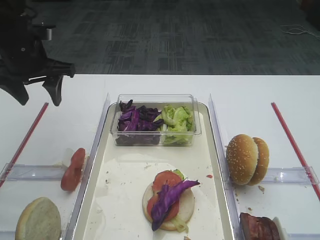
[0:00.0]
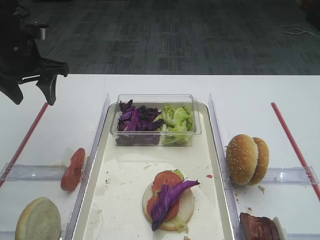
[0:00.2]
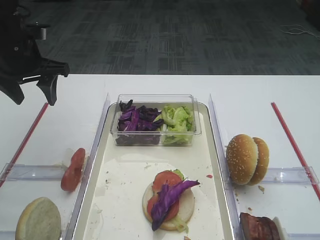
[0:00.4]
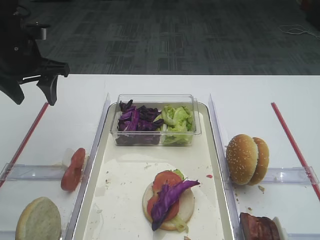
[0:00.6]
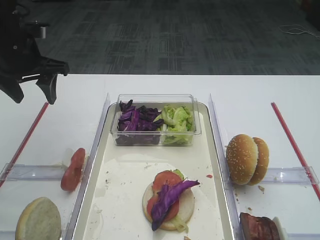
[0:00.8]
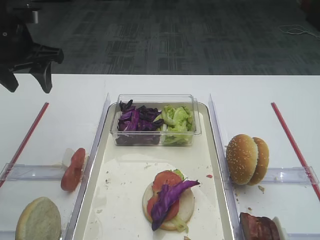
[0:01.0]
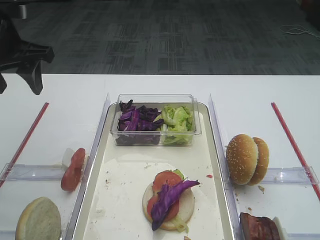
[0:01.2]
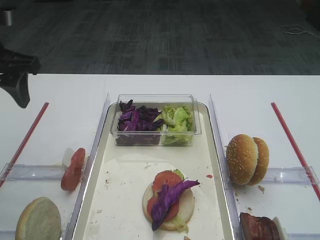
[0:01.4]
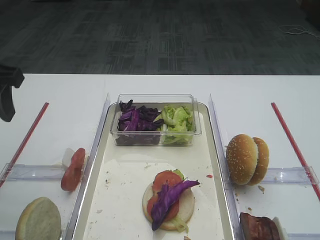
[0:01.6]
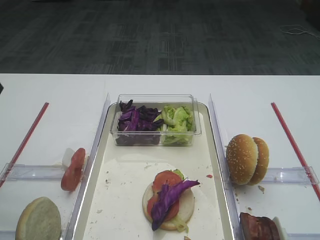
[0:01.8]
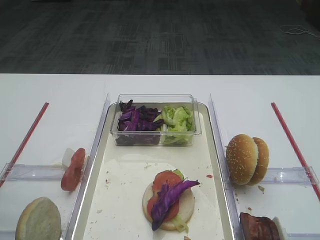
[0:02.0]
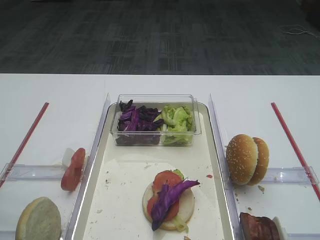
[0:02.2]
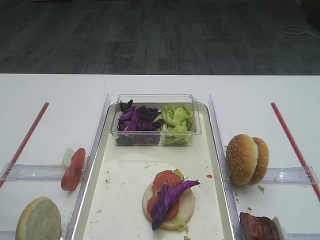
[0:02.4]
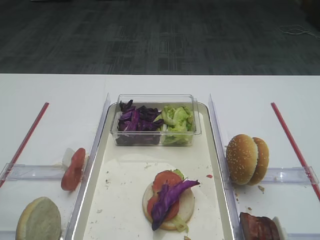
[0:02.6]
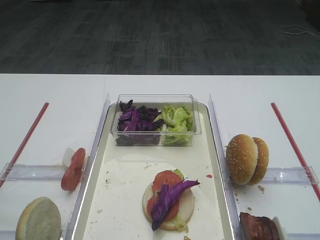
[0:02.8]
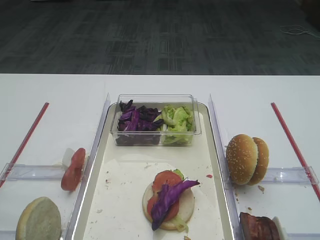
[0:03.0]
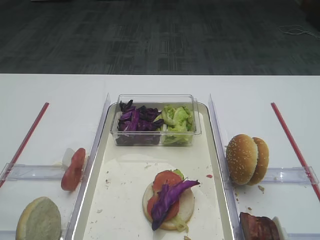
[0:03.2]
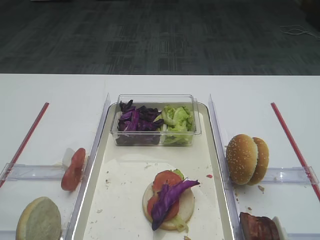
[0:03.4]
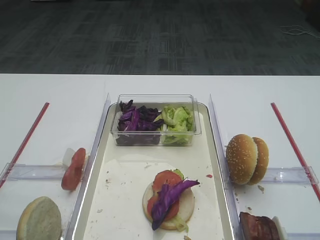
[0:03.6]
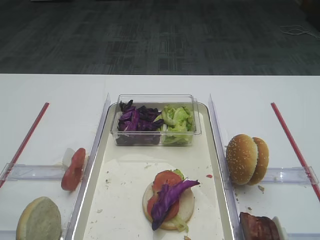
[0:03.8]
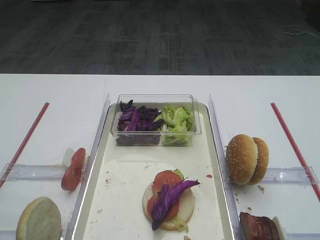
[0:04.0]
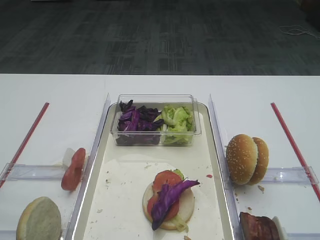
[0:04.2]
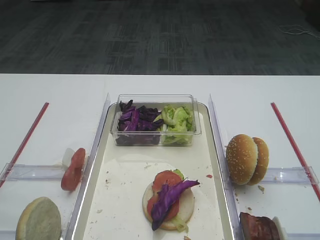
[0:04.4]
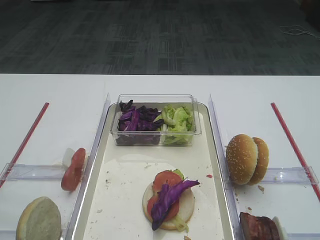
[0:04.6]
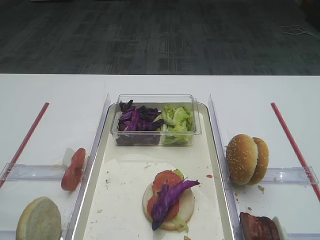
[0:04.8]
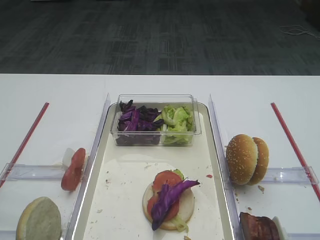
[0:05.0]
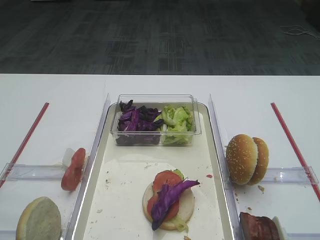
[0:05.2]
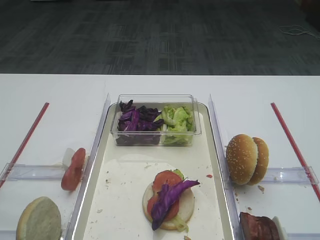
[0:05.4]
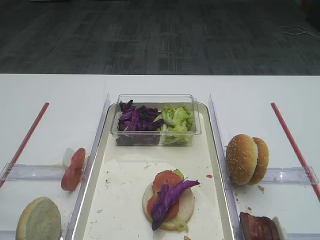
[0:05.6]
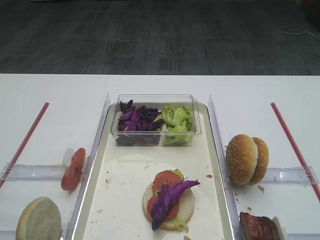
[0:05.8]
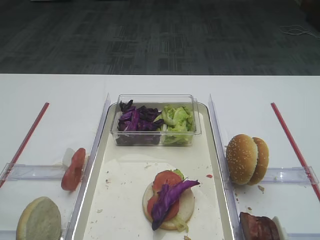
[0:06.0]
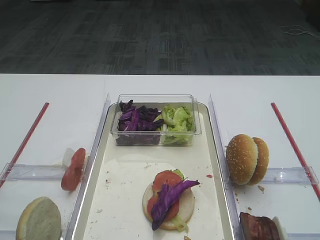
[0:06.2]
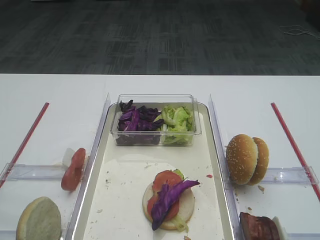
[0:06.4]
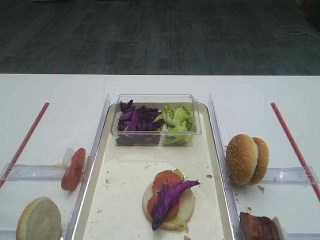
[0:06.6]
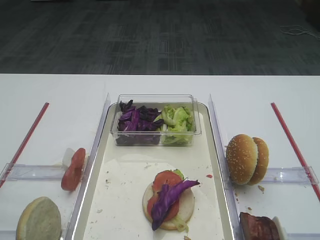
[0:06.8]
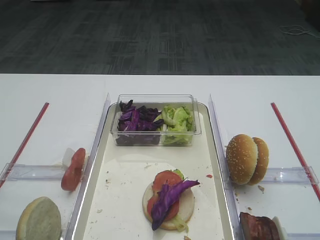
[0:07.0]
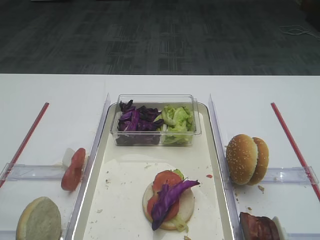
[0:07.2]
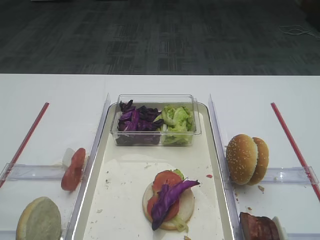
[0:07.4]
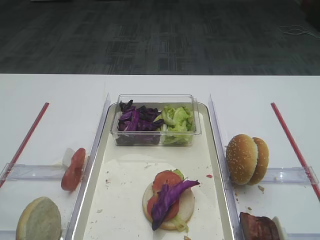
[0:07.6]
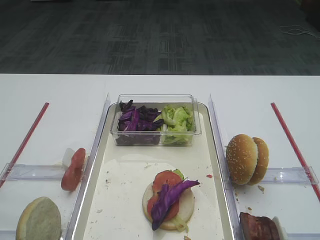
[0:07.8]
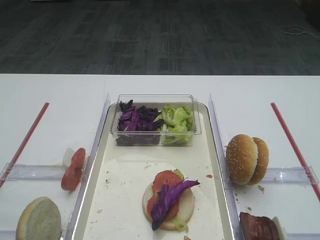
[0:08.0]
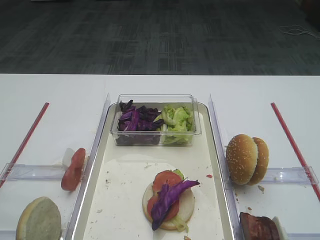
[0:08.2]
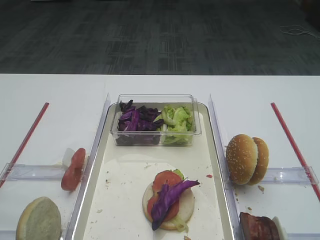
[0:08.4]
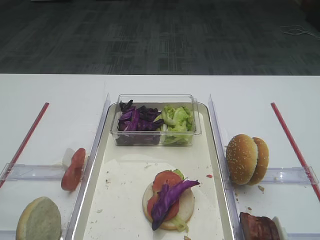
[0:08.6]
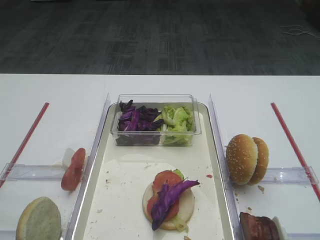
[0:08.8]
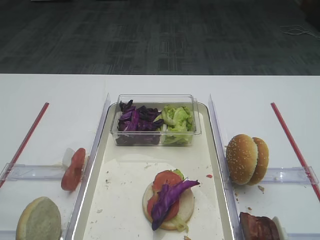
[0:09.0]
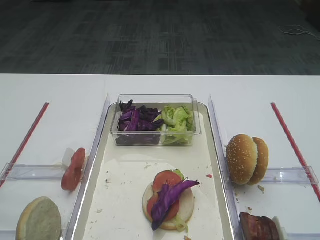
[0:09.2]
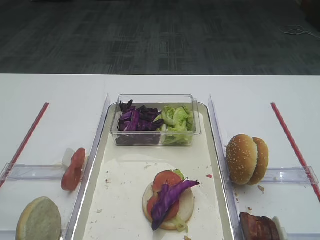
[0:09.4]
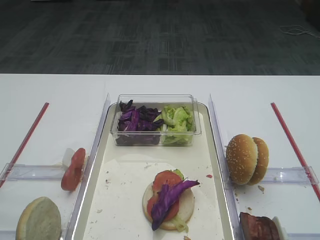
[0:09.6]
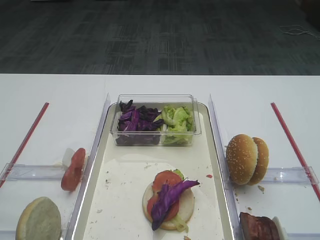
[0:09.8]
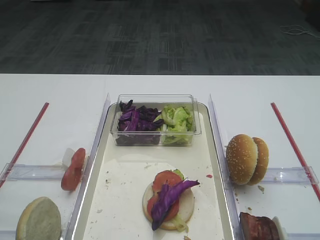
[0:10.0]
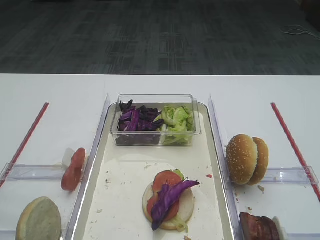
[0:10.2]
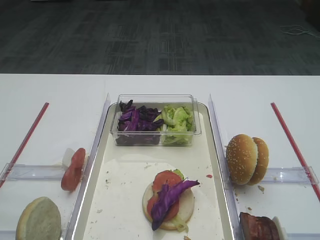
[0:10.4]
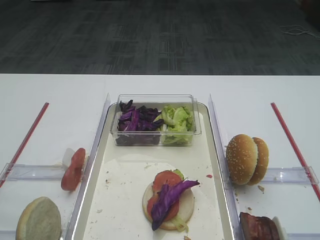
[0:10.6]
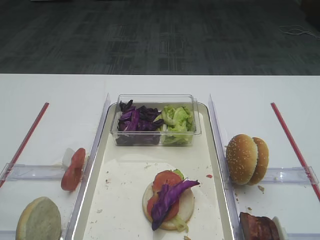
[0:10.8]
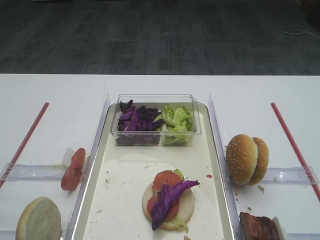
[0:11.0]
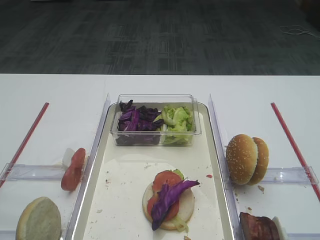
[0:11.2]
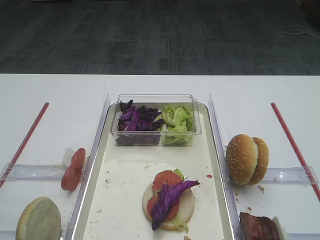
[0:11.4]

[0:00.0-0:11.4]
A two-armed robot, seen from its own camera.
0:00.0 to 0:01.4: The left gripper moves backward, approximately 10 cm.
0:01.4 to 0:02.8: The left gripper goes some 25 cm backward.
0:04.2 to 0:11.4: Both grippers stay about where they are.

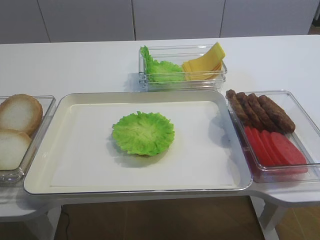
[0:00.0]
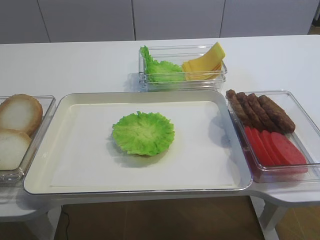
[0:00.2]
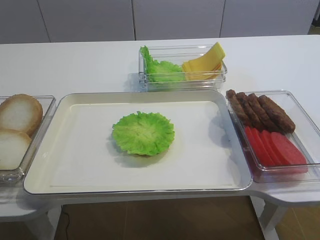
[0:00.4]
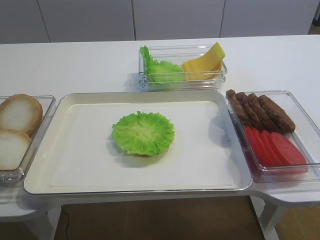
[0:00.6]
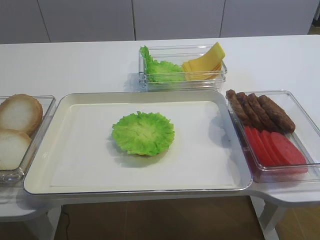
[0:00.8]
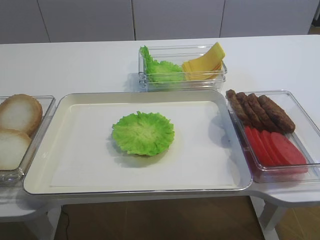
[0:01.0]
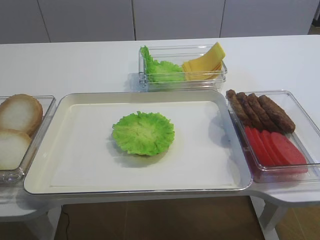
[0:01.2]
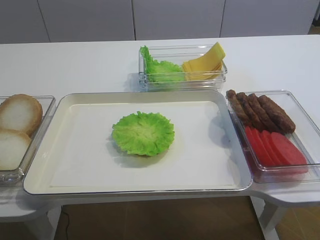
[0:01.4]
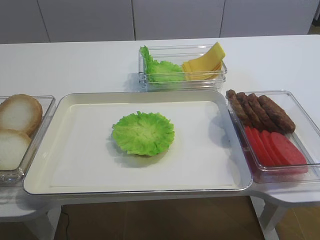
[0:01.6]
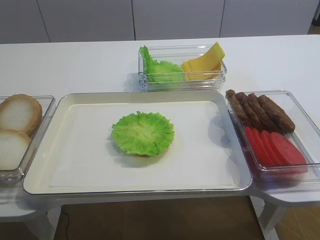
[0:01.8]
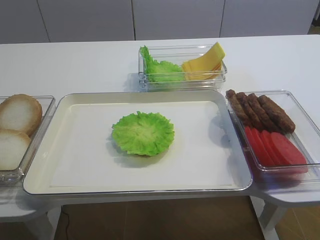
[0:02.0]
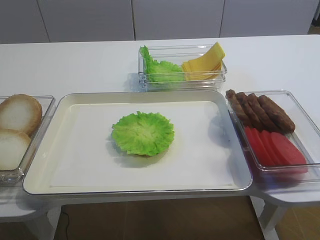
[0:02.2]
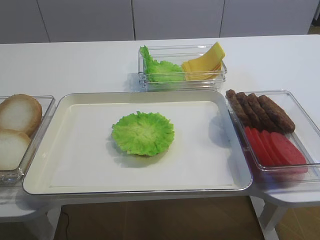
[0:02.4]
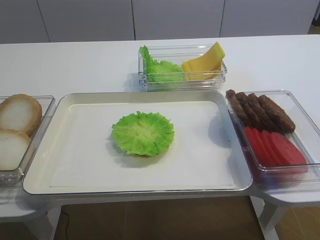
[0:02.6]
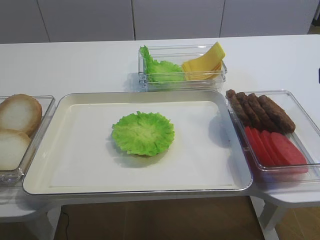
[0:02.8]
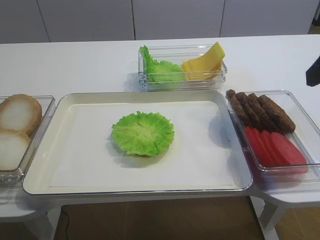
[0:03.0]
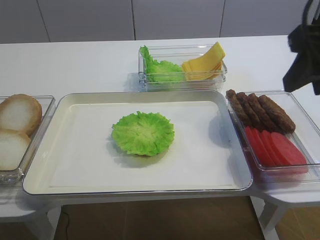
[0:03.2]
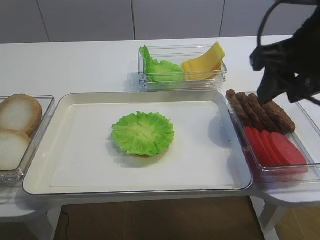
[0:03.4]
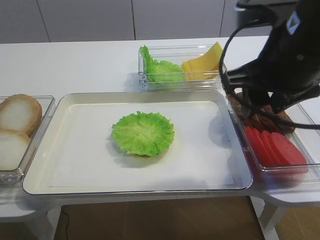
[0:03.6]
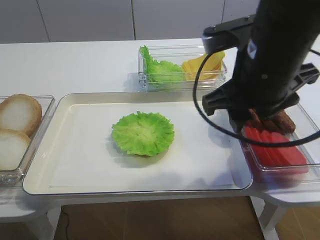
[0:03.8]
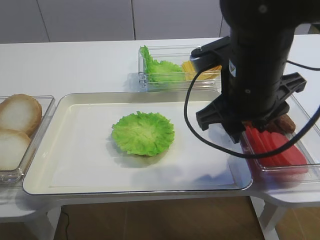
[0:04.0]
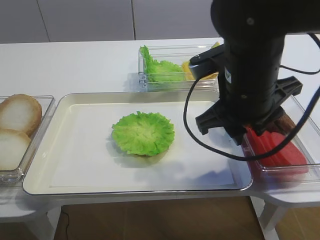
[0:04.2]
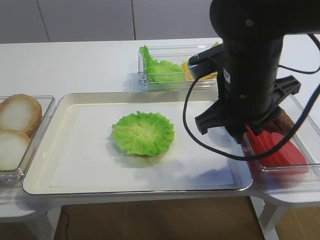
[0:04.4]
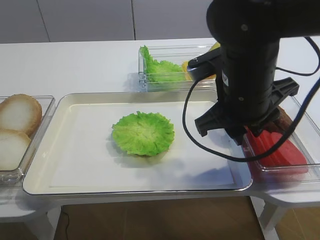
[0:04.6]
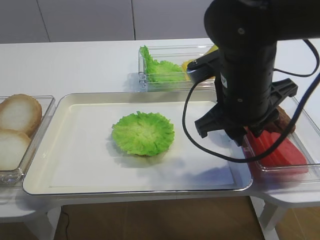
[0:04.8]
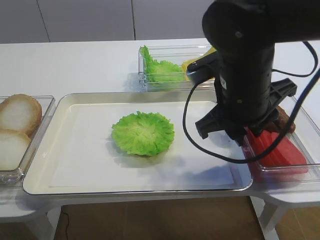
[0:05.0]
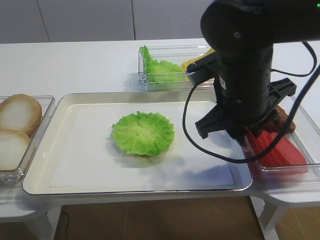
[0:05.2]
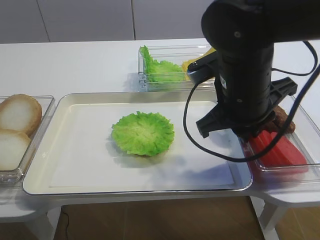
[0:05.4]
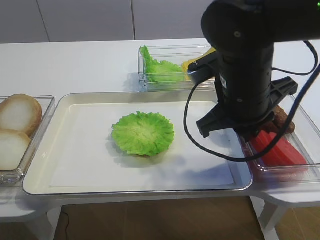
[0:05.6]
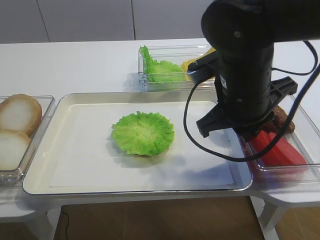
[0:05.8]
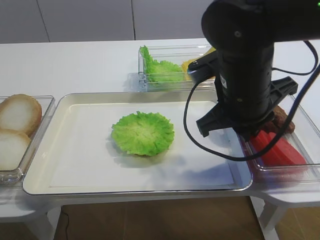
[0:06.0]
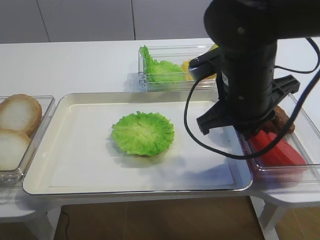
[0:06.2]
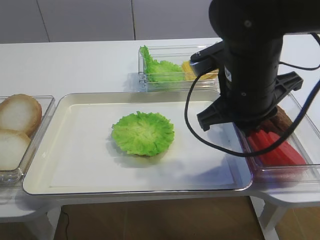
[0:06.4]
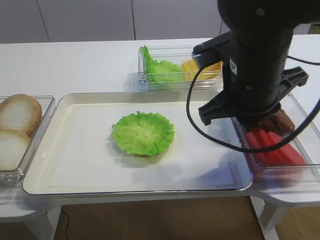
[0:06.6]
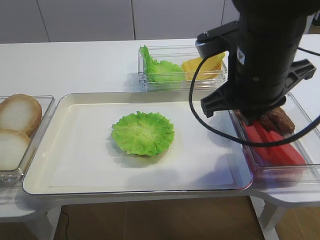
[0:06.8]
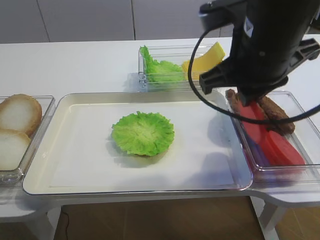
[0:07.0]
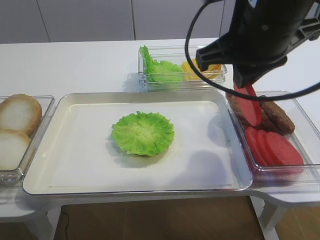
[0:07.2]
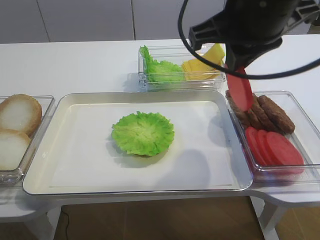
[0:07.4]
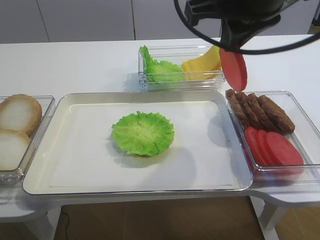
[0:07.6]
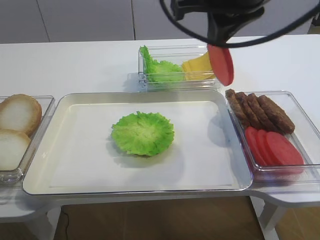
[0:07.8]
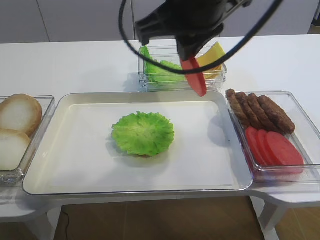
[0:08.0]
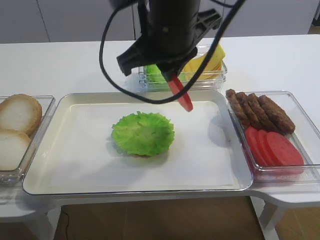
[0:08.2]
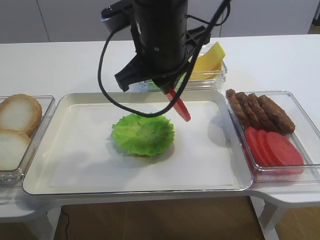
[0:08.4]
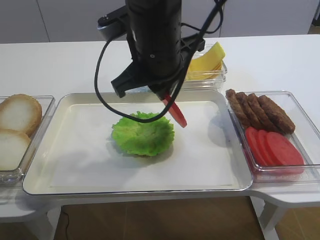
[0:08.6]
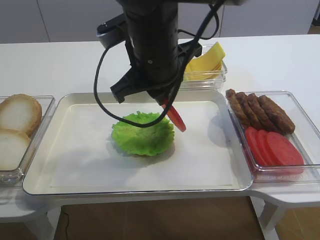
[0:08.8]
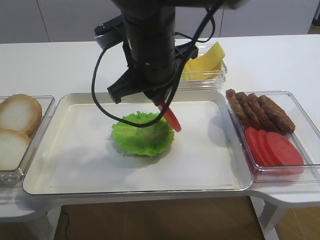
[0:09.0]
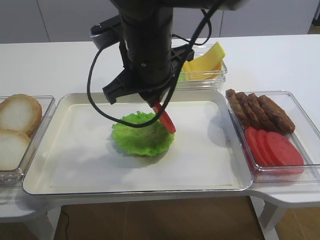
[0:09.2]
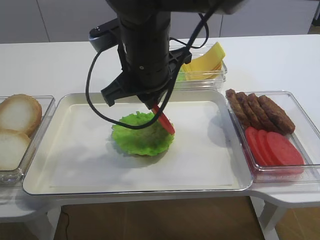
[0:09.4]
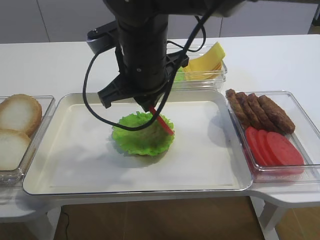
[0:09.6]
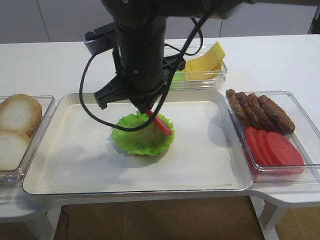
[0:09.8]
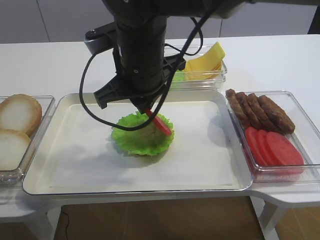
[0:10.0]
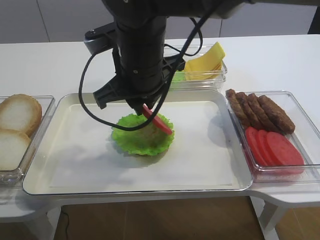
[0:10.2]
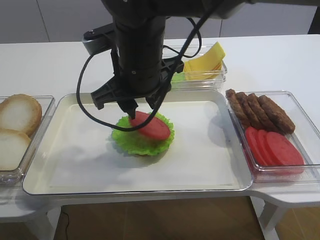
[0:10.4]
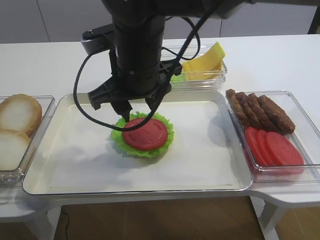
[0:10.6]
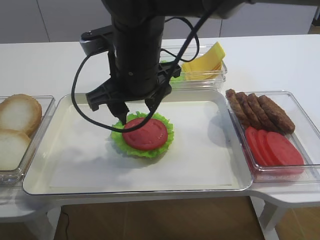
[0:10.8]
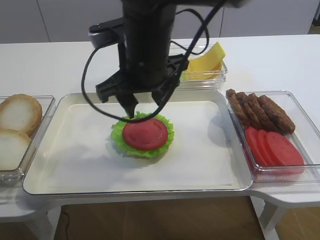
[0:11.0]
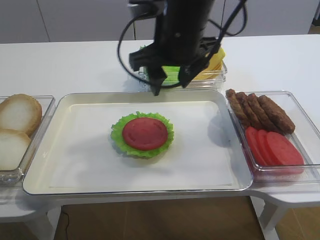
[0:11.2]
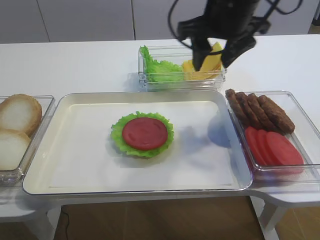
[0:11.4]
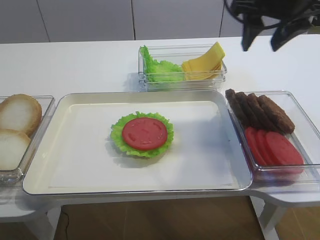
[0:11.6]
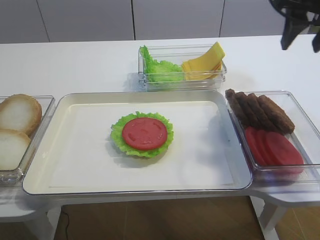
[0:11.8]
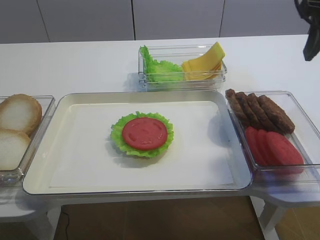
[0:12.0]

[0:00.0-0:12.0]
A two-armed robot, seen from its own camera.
Step, 0:00.0 to 0:06.8: Pick up the tomato slice with the right gripper.
Step, 0:07.0 to 0:10.8: Place the tomato slice on the lettuce leaf with the right gripper.
0:01.6 to 0:03.0: The right gripper shifts about 20 cm forward.
0:03.0 to 0:04.4: The right gripper is displaced to the left and downward by roughly 15 cm.
0:04.4 to 0:06.0: The right gripper closes.
0:06.0 to 0:07.6: The right gripper shifts about 15 cm upward.
0:07.6 to 0:09.0: The right gripper travels to the left and downward by some 15 cm.
0:09.0 to 0:10.4: The right gripper opens.
0:10.4 to 0:12.0: The right gripper moves to the right, roughly 25 cm.
